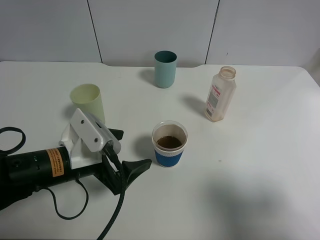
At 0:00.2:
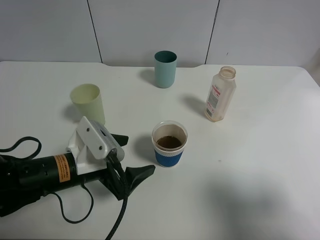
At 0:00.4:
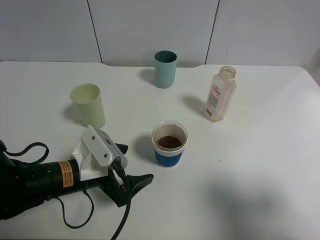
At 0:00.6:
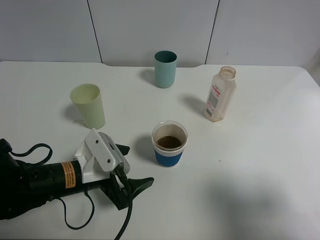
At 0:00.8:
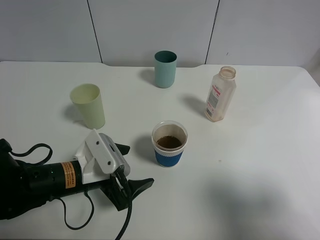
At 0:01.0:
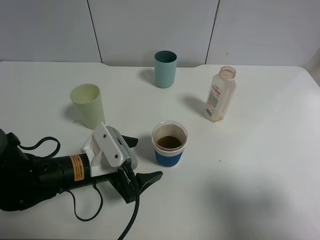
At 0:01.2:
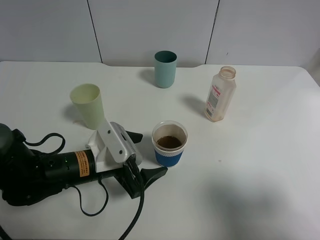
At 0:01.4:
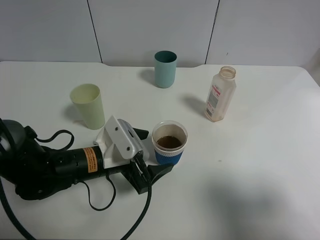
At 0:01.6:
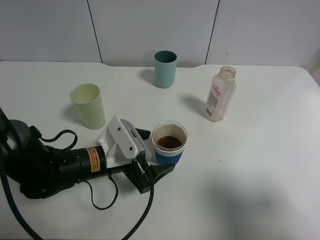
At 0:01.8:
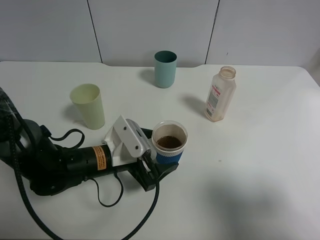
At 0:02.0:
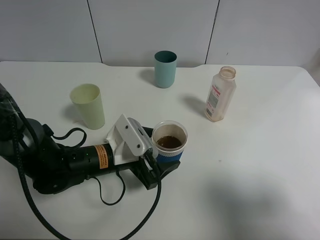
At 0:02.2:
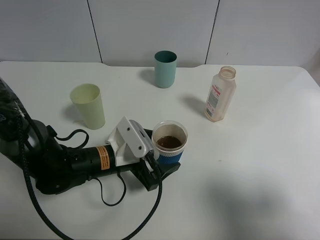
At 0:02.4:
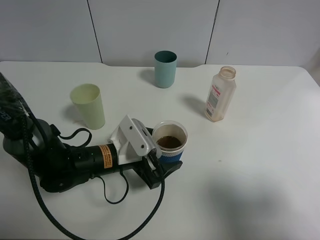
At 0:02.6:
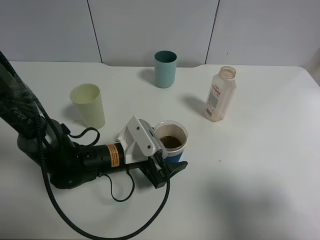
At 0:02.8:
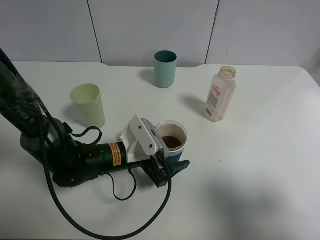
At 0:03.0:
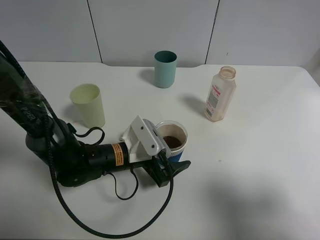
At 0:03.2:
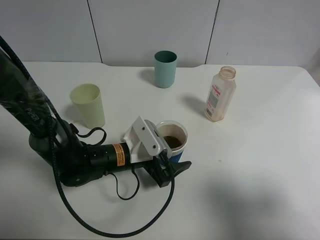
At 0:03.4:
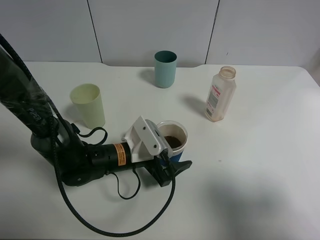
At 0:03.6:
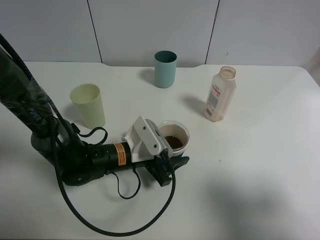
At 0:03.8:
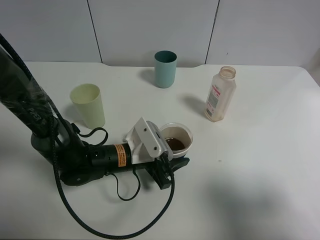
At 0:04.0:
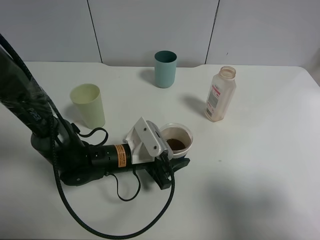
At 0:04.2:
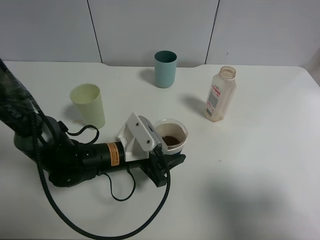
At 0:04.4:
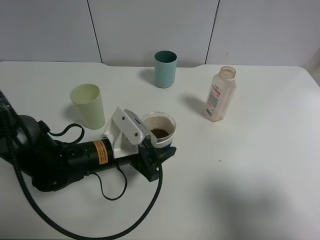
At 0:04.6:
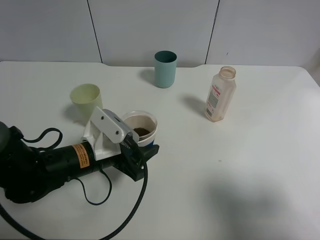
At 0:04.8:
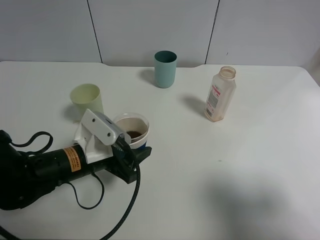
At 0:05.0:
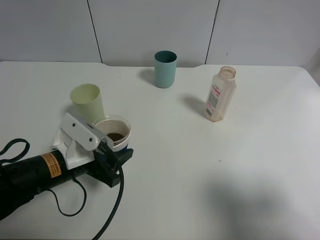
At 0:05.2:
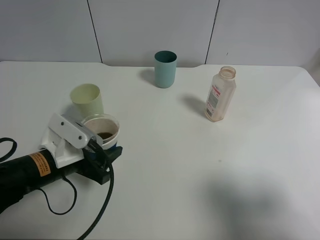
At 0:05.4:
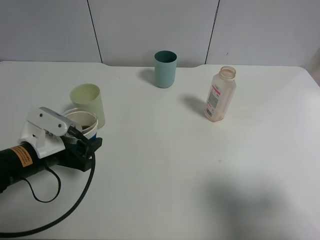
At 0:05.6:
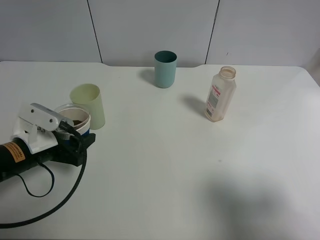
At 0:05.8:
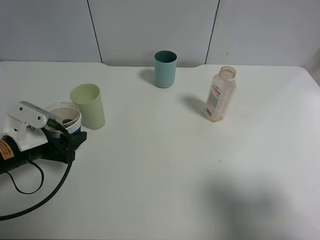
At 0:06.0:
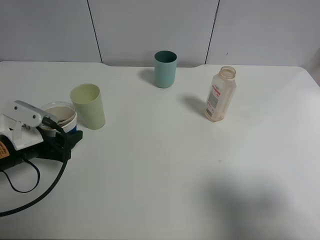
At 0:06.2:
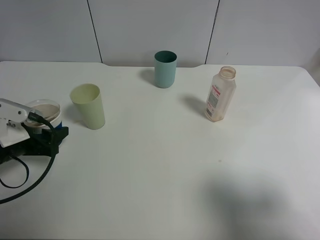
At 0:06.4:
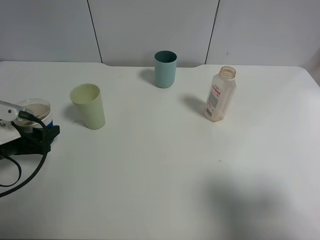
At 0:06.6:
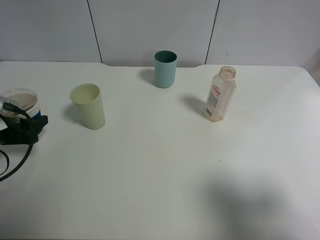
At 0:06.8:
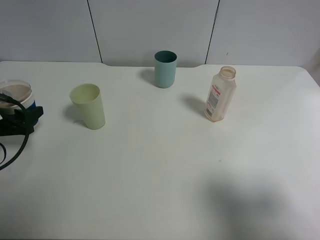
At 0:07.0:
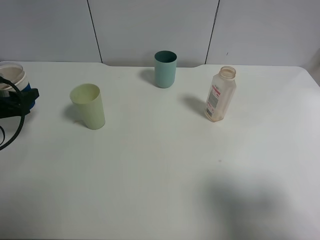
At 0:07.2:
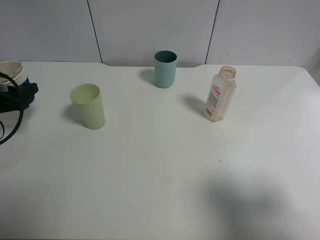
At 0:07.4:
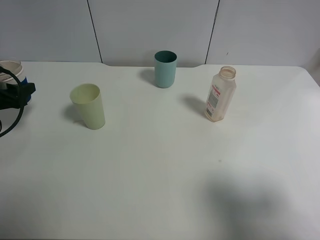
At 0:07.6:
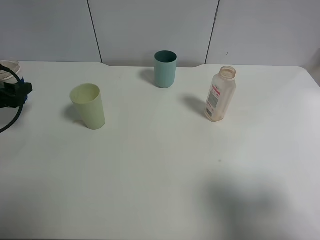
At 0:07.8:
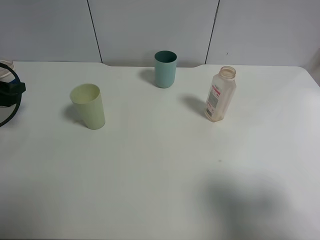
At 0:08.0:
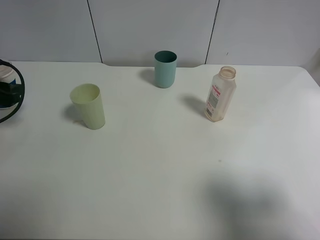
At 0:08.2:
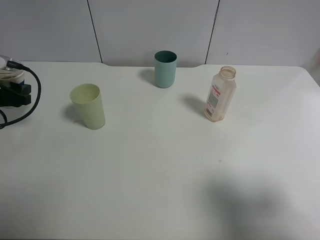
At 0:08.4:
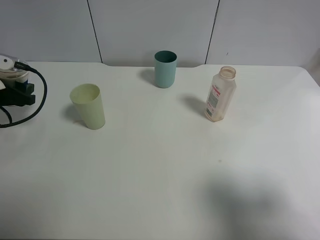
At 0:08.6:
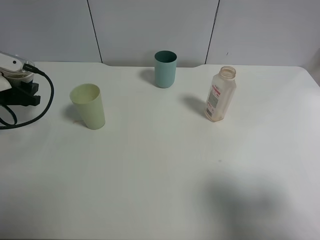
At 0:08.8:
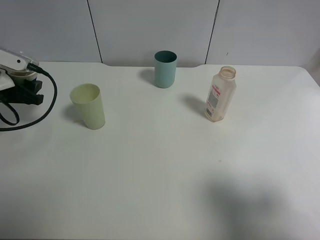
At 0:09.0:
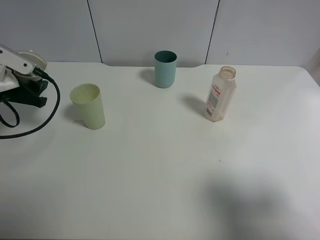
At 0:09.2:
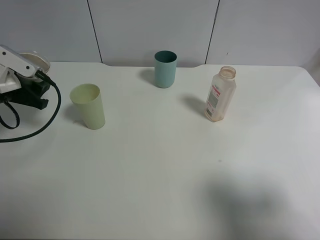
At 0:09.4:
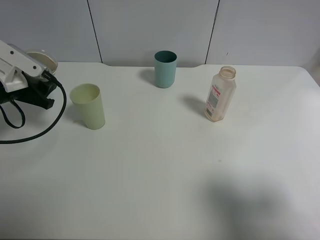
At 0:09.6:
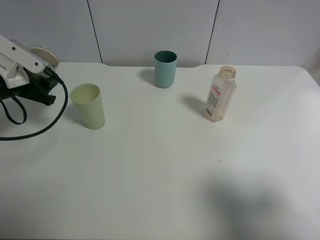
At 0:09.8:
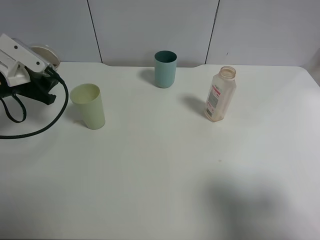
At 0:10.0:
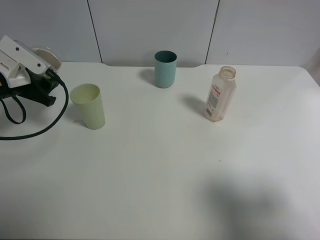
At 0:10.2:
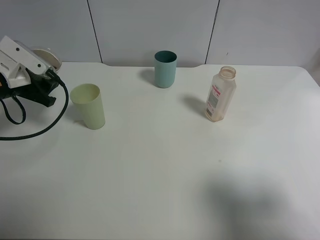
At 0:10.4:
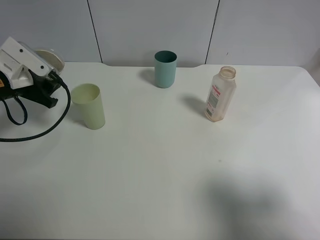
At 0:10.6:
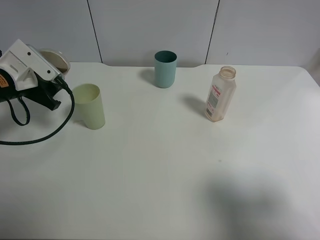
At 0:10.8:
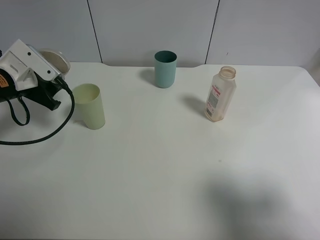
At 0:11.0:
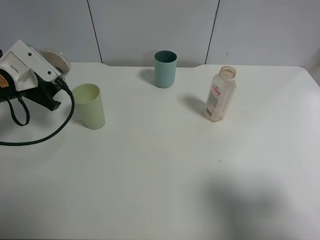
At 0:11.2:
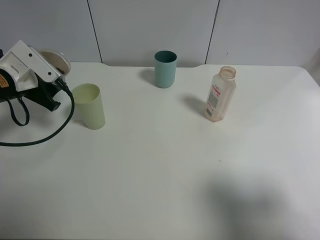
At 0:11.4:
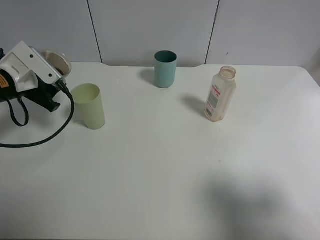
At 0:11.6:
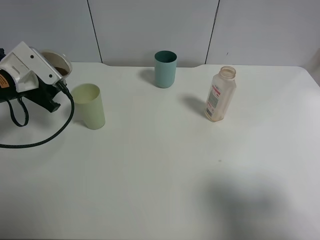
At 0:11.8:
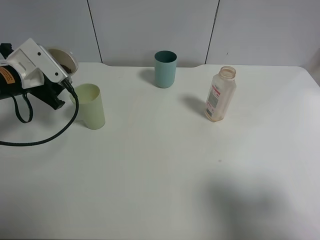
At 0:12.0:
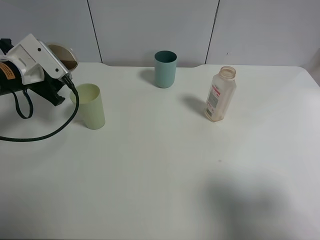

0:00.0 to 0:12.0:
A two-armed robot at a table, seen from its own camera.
Task of the whole recording: use a clamp to hold the bottle of the drink, pour the beverage into a random cup, then clamp the cup containing the drink and pour the drink into another random cup.
Step, 0:00.0 to 0:04.2: Pick up the paper cup with left gripper.
0:00.0 to 0:01.6: The left gripper shifts by roughly 5 cm.
0:01.6 to 0:03.0: The grippers stay close to where they were, moving slightly.
0:03.0 to 0:04.4: The left gripper closes.
0:04.4 to 0:06.0: The left gripper goes about 15 cm to the left.
0:06.0 to 0:07.6: The left gripper travels to the left and forward by some 15 cm.
0:07.6 to 0:09.0: The left gripper travels to the right by roughly 5 cm.
0:09.0 to 0:10.4: The grippers stay close to where they were, moving slightly.
0:10.4 to 0:12.0: The grippers make only small movements.

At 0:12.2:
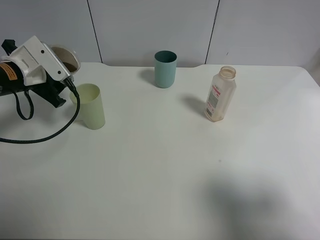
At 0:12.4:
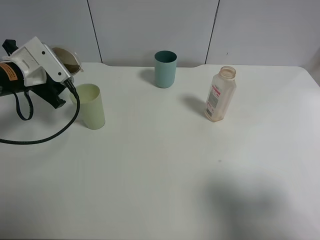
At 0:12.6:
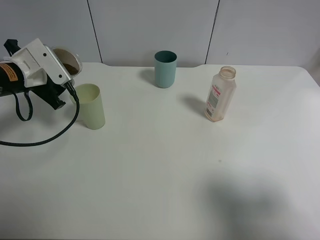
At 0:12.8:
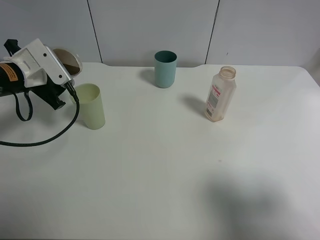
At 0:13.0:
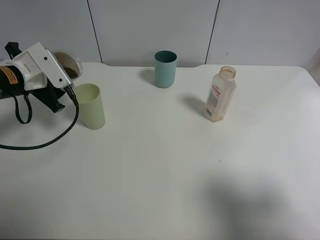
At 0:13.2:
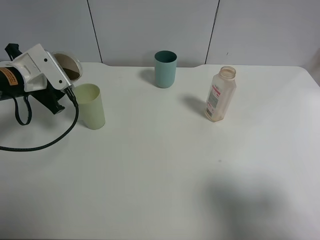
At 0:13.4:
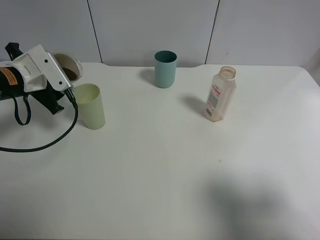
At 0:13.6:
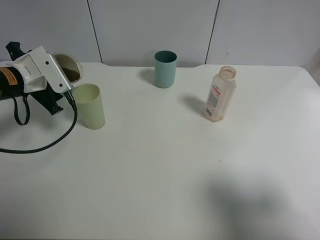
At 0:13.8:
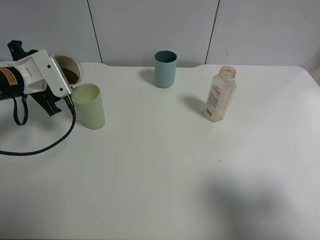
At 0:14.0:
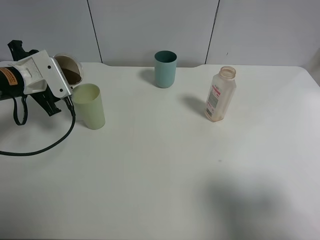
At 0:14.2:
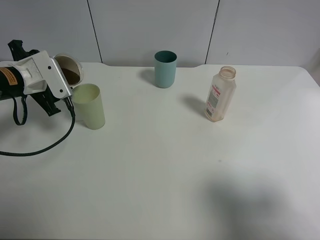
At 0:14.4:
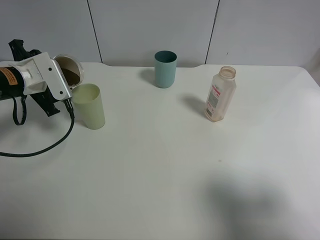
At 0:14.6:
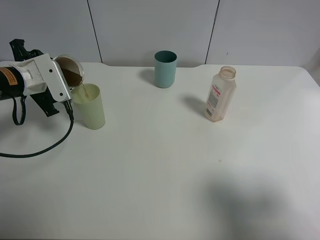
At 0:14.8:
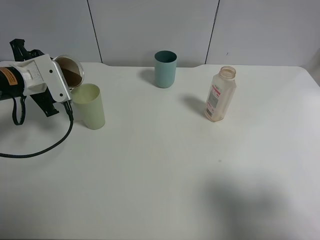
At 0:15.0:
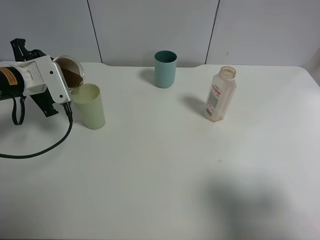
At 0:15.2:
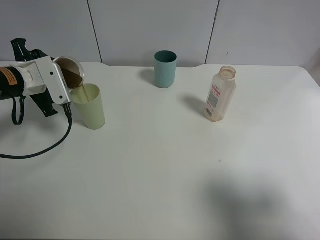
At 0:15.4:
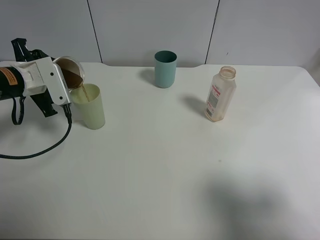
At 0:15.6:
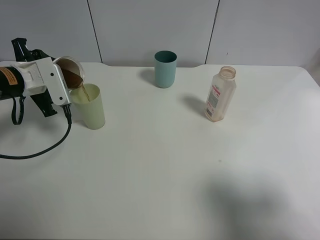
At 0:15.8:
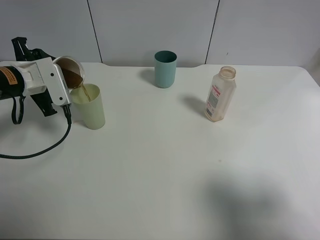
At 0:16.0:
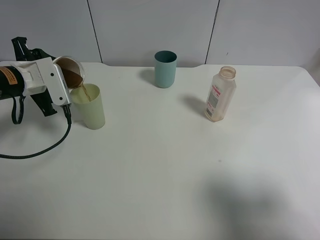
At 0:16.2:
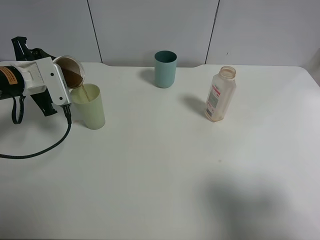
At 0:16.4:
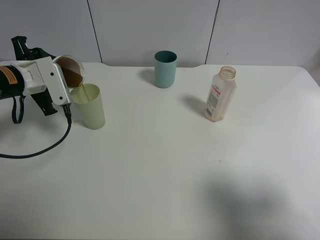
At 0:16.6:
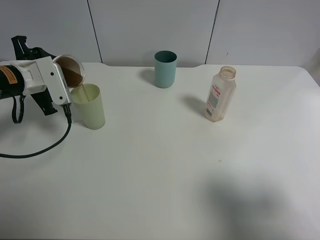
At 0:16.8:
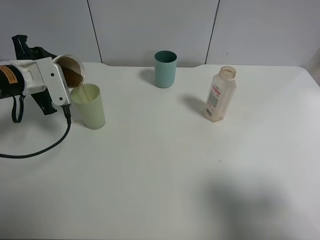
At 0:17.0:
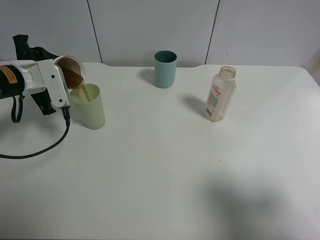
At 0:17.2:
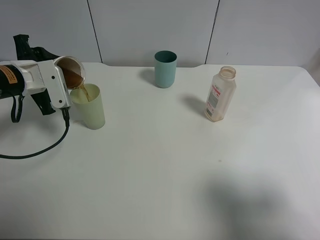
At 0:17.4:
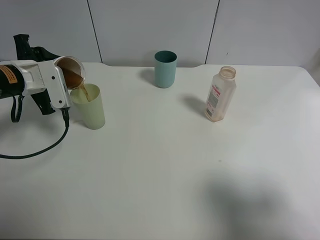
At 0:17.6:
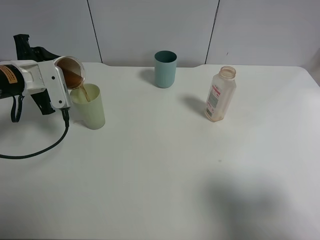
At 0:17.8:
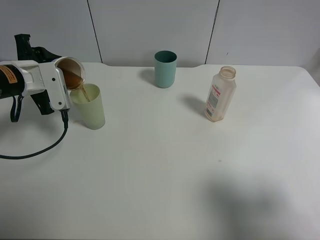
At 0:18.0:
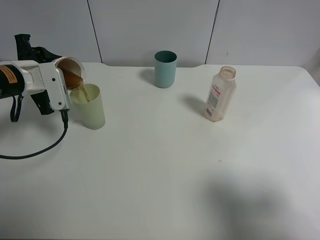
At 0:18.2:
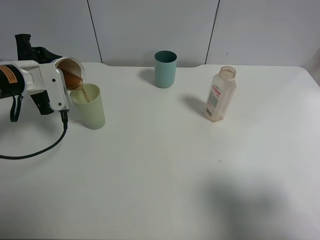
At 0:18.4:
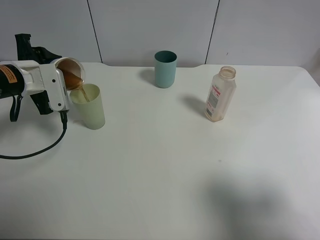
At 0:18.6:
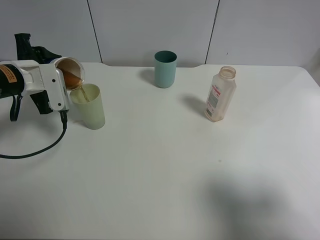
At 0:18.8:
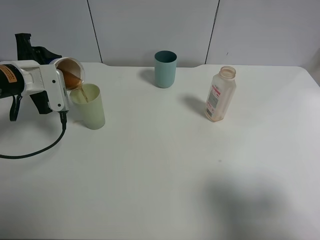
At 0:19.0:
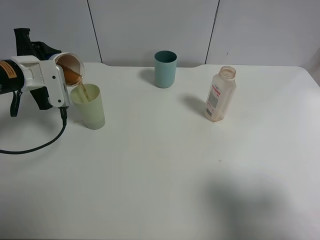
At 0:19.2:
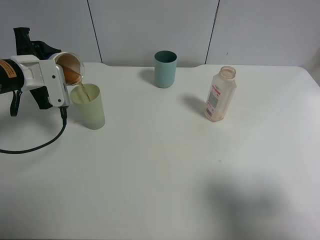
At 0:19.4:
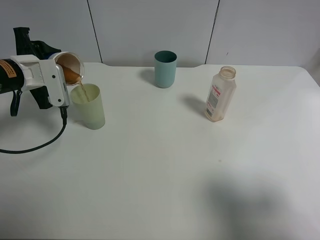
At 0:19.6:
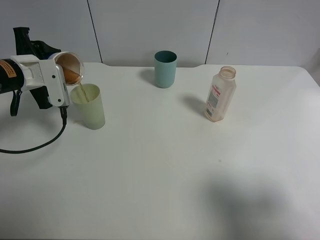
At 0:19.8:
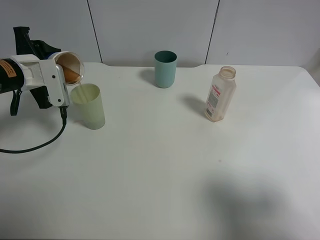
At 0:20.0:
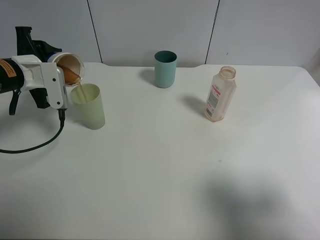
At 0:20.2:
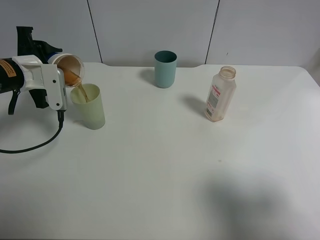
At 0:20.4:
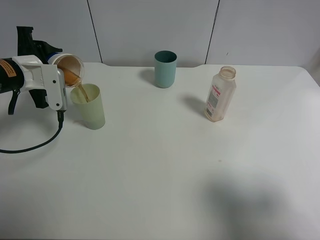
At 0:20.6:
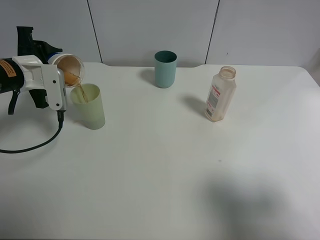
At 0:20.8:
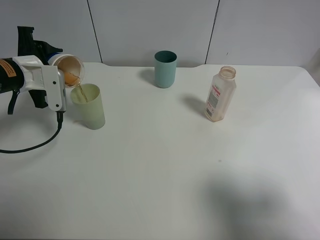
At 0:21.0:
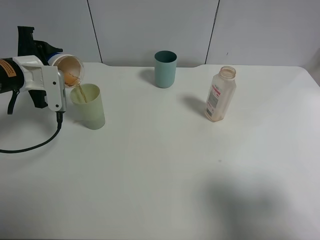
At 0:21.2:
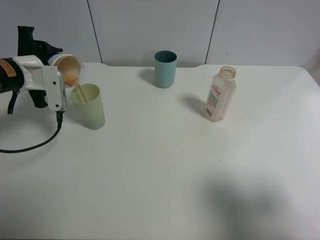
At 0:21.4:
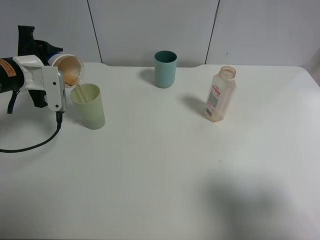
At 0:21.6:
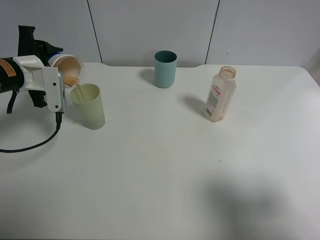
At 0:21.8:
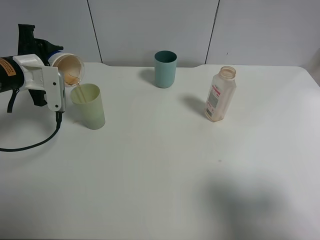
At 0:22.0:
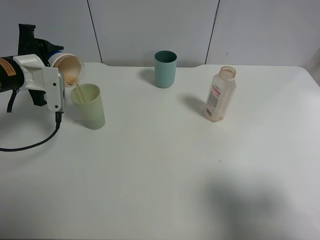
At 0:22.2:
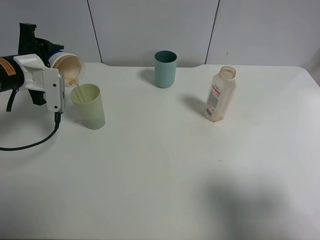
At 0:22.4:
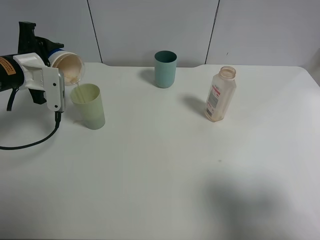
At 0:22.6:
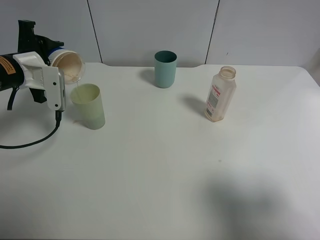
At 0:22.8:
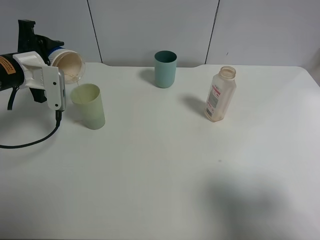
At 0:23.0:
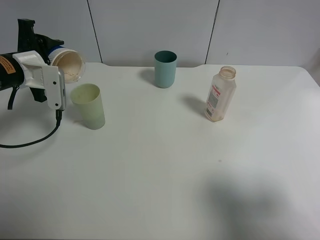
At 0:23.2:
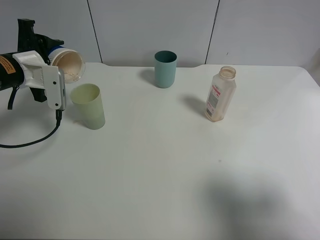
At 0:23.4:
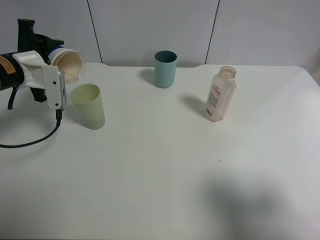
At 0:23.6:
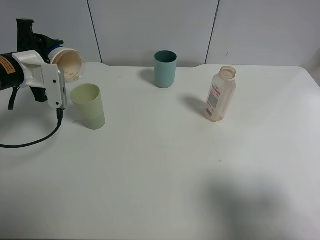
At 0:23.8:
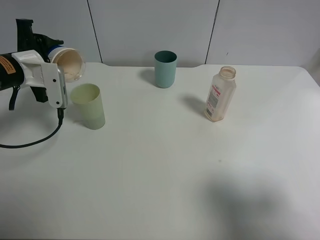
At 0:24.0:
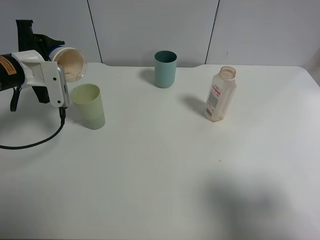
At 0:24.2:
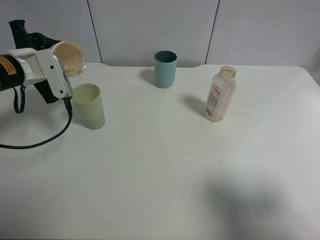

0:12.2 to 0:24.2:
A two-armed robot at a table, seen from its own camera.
Task of the whole recording: use a clamp to hold the bottle of the drink, pour the beverage into a random cup, then clamp the cup containing the drink and pour the drink into another random cup.
0:12.2 to 0:13.8: The grippers move only a little.
0:13.8 to 0:15.2: The grippers stay close to where they were, moving slightly.
0:15.2 to 0:16.6: Neither gripper changes place.
0:16.6 to 0:18.2: There are only small adjustments of the grippers.
0:18.2 to 0:19.8: The two grippers keep their place.
0:19.8 to 0:22.6: There are only small adjustments of the grippers.
